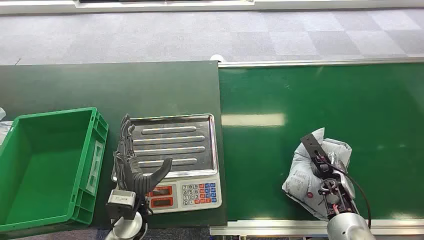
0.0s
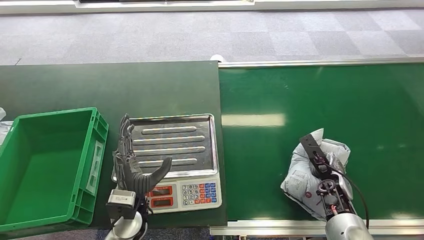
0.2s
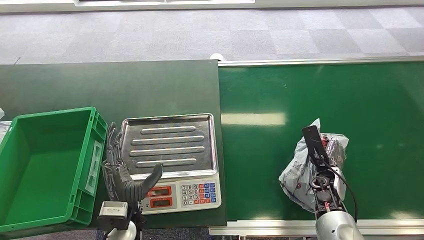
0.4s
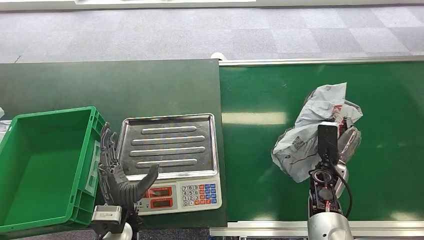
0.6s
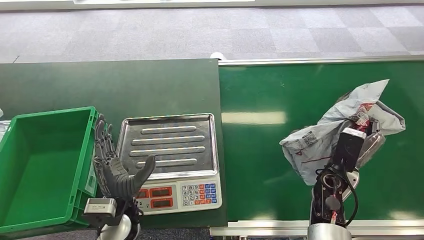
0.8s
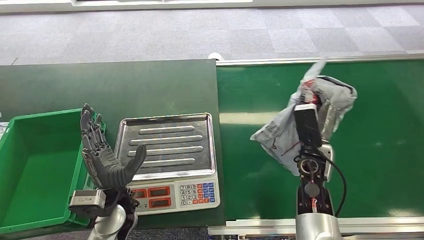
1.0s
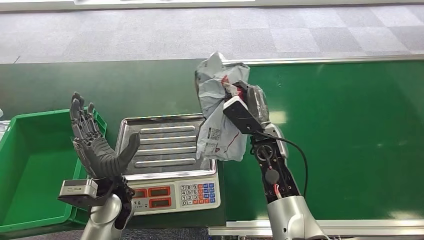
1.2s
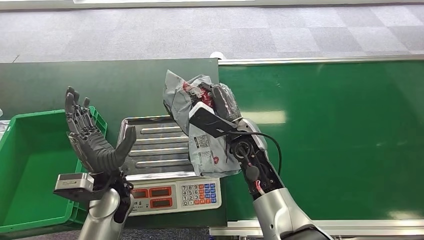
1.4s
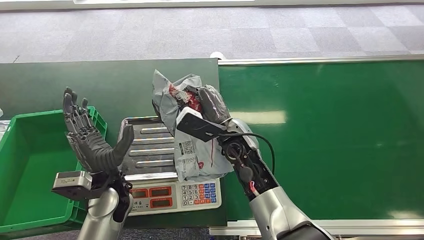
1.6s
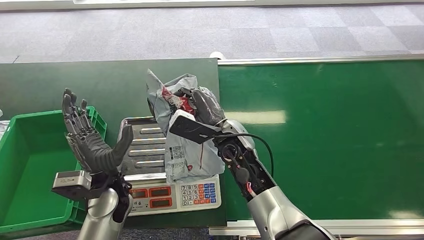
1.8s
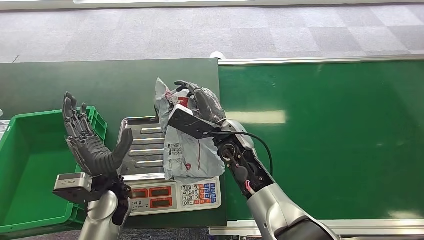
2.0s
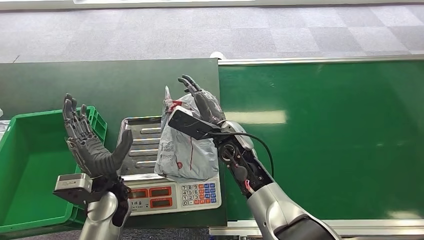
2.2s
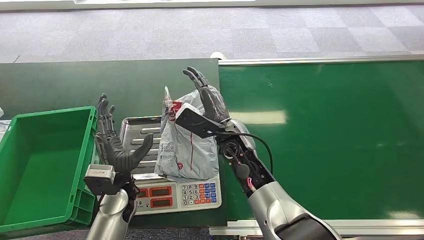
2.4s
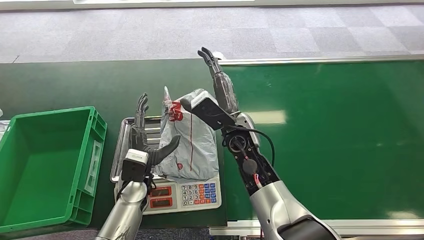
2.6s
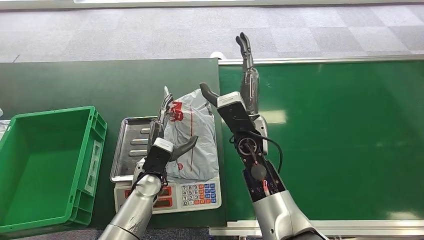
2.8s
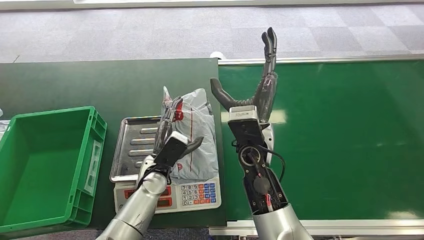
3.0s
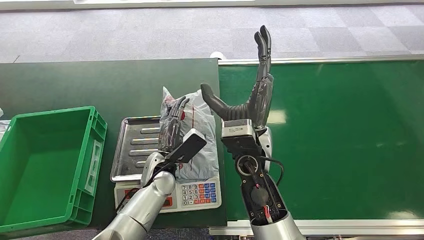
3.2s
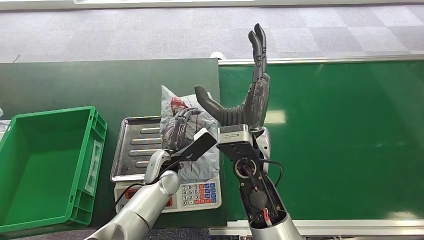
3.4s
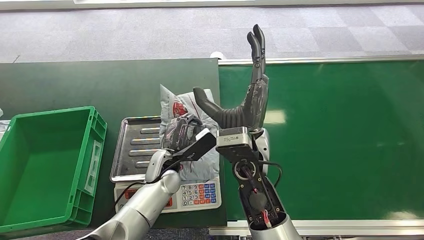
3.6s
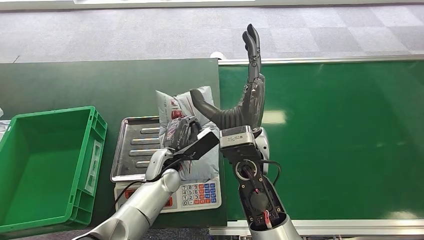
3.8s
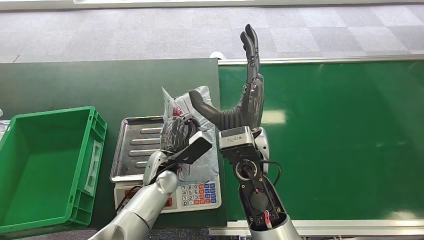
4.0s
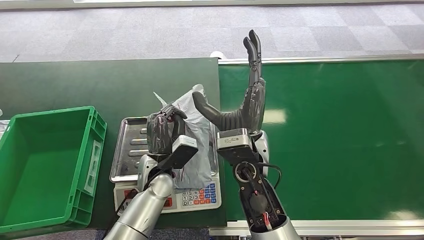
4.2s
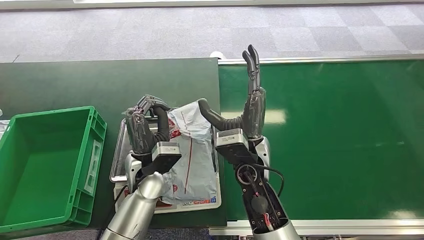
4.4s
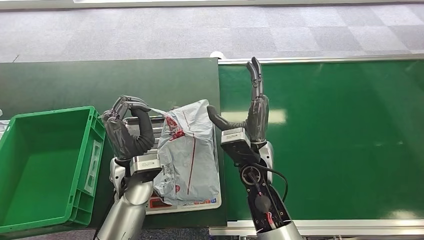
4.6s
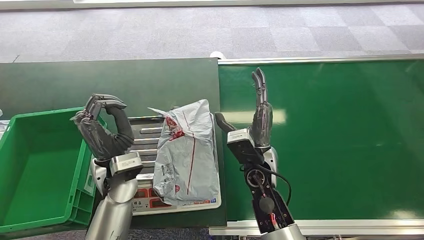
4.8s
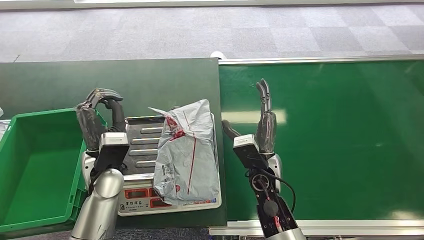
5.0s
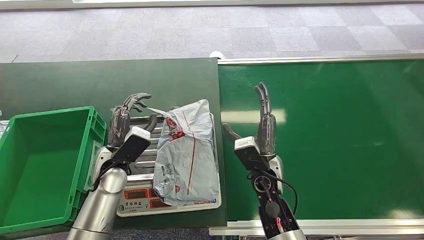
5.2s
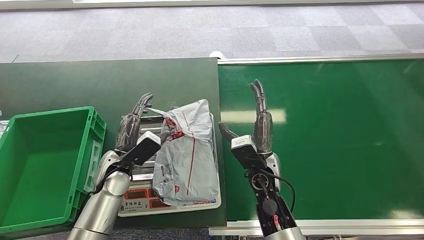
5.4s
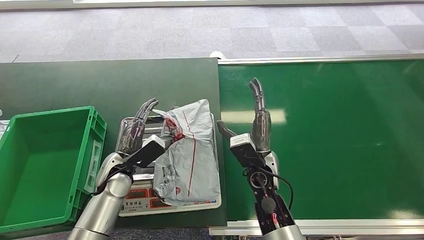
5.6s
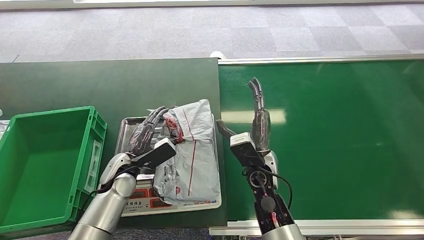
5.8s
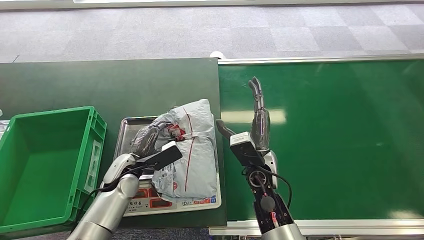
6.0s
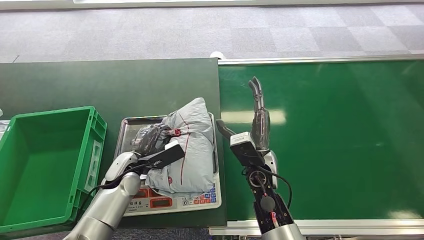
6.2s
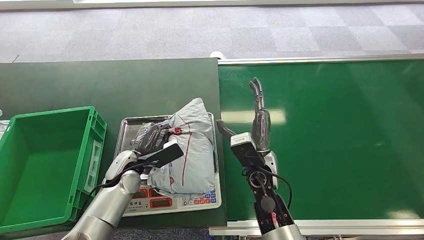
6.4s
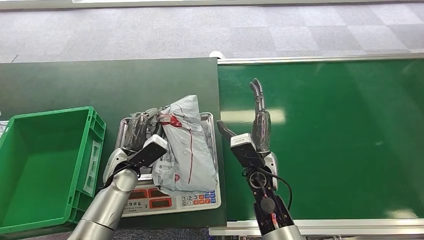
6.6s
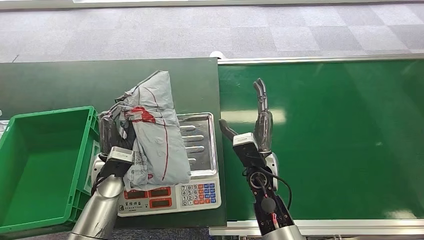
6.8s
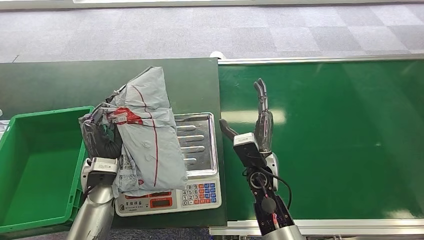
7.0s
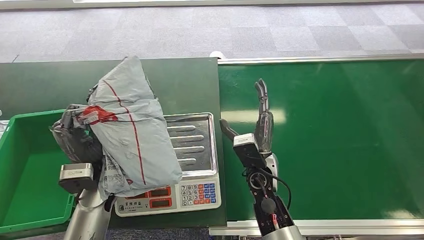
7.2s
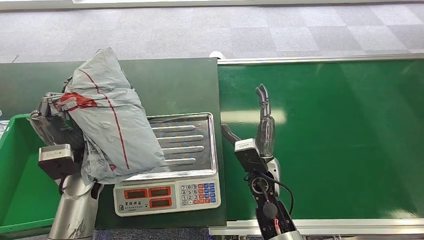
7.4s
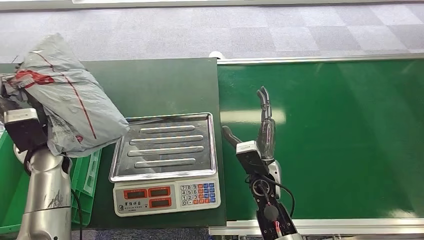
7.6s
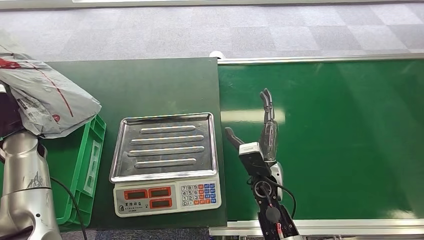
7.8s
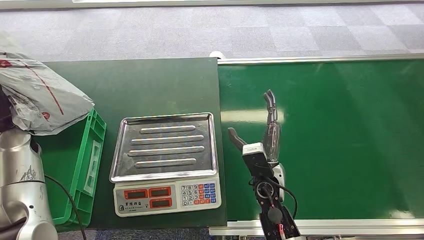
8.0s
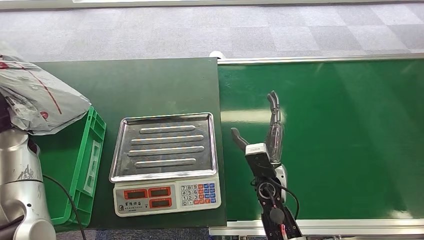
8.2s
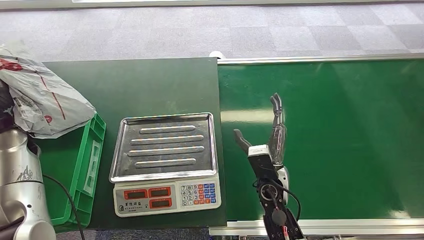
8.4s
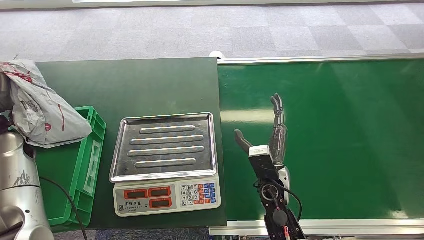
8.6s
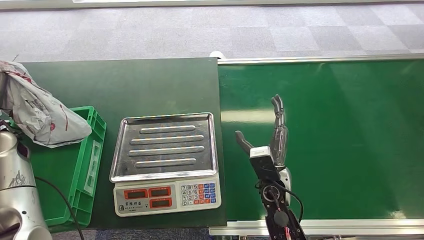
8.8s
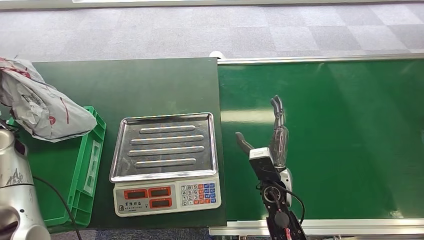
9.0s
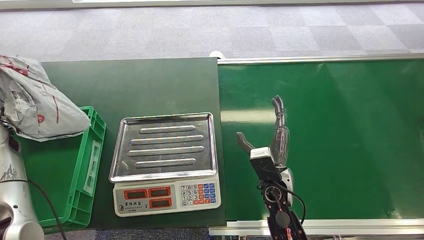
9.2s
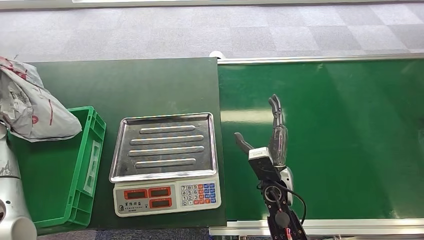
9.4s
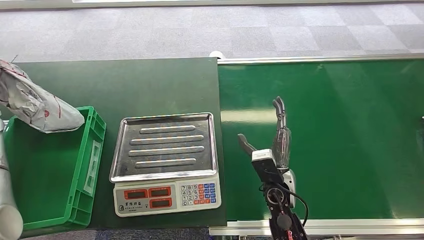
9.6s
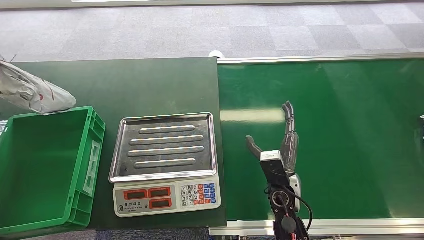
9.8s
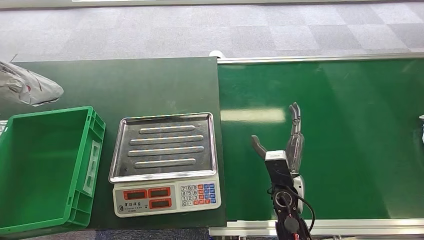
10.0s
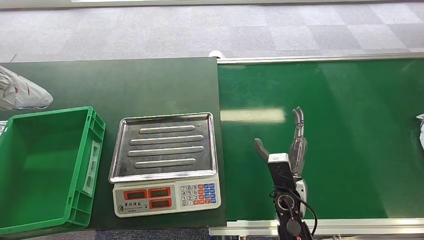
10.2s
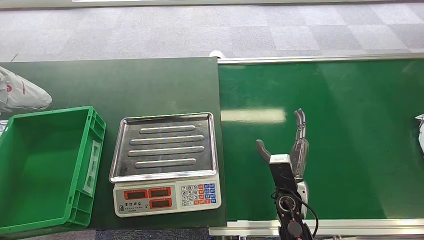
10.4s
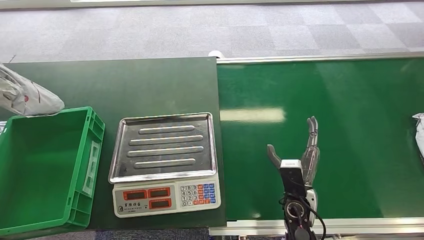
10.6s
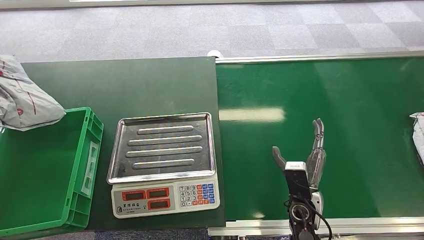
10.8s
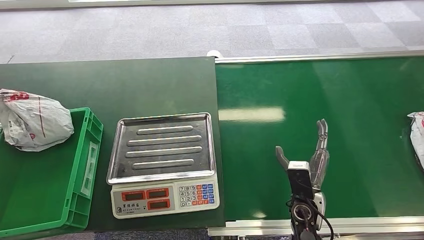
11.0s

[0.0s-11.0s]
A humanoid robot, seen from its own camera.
Step, 0.0s to 0.6s: Pick up the package from the conveyor belt.
Step, 1.6s to 2.6s: Place the package onto the inbound machine.
Step, 6.4s to 7.6s: Pick up the package from the inbound machine.
Step, 9.2s to 11.0s: Place the package into the parcel locker.
1.6s to 3.2s: The left hand is displaced to the right, forward and downward by some 10 cm; the right hand travels upward by about 5 cm.
3.2s to 4.8s: The left hand travels upward and to the left by some 10 cm, while the right hand heads downward, covering about 10 cm.
4.8s to 6.2s: The left hand moves downward, some 10 cm.
7.8s to 9.4s: The left hand goes about 5 cm to the left.

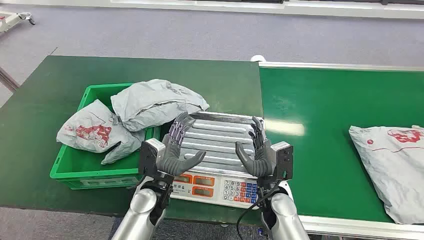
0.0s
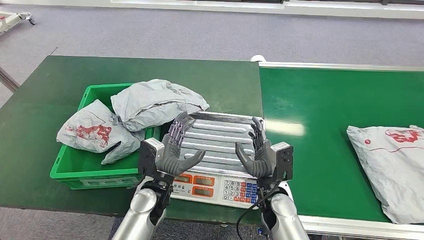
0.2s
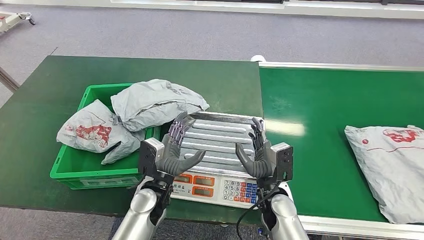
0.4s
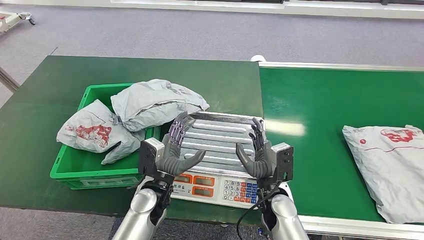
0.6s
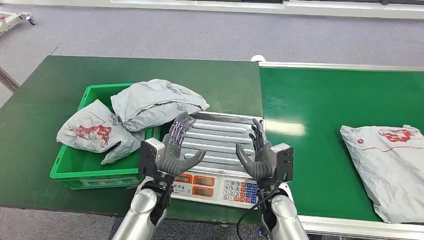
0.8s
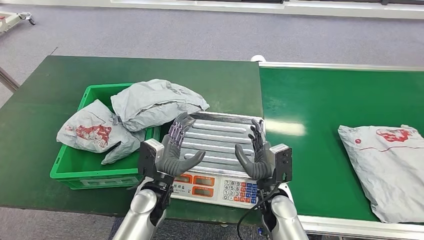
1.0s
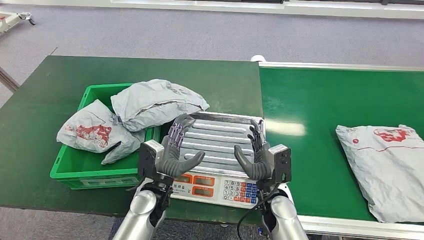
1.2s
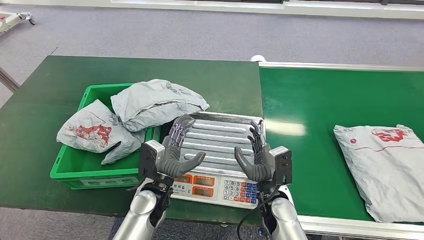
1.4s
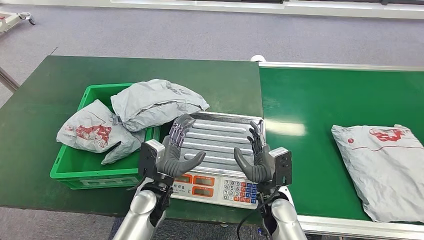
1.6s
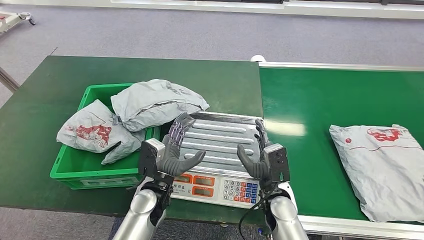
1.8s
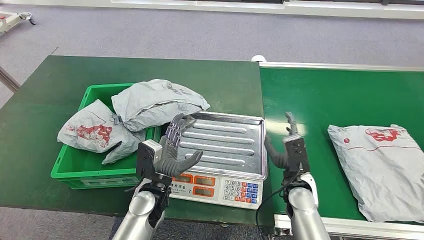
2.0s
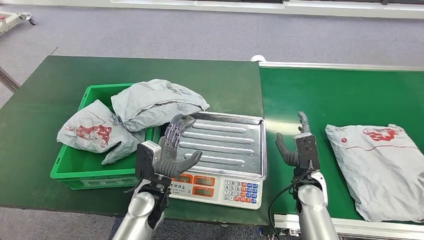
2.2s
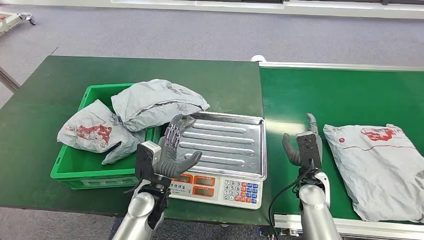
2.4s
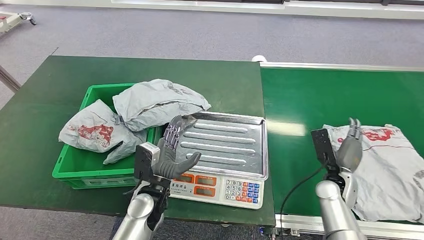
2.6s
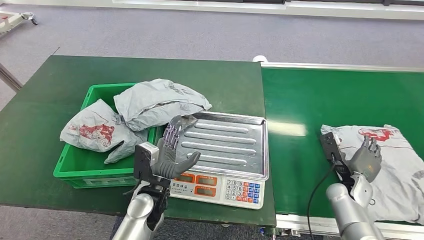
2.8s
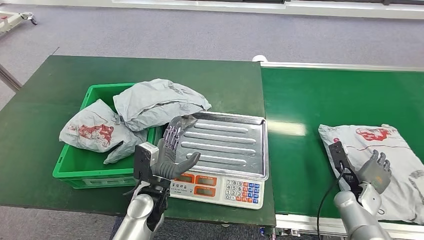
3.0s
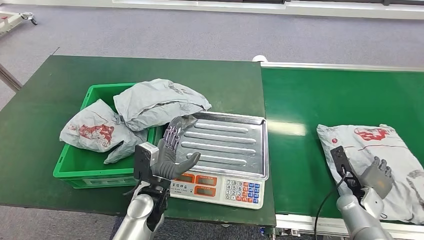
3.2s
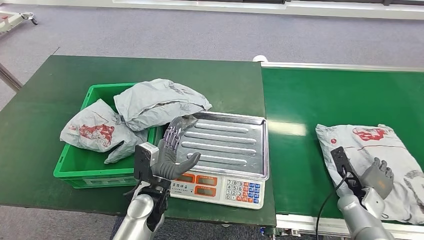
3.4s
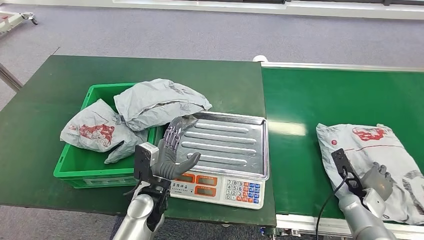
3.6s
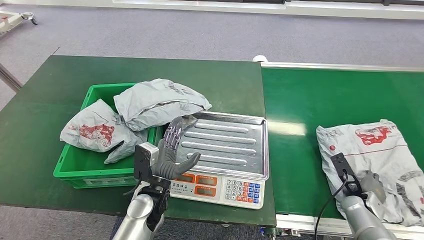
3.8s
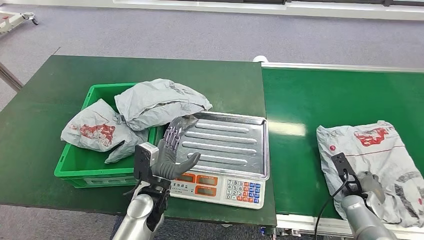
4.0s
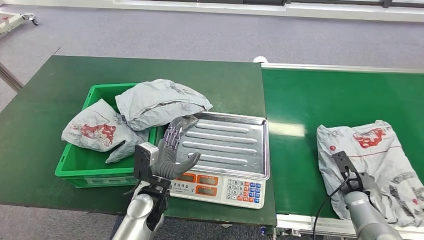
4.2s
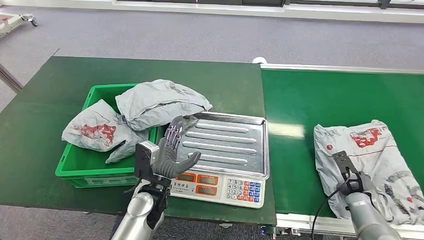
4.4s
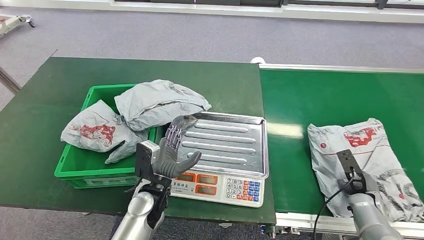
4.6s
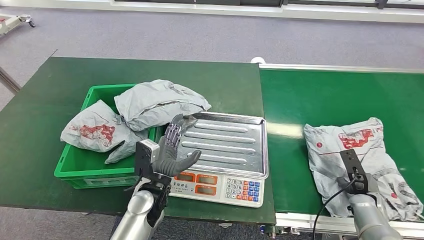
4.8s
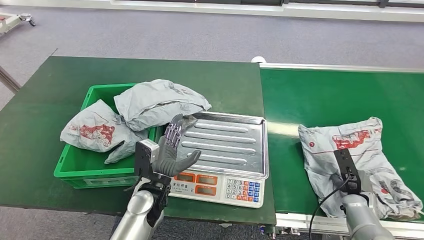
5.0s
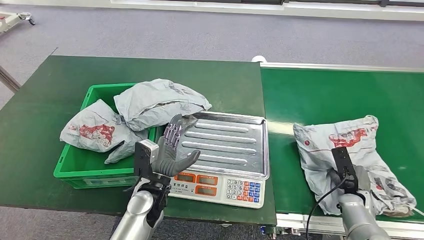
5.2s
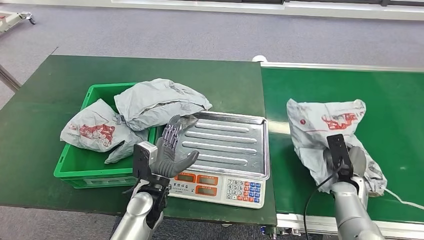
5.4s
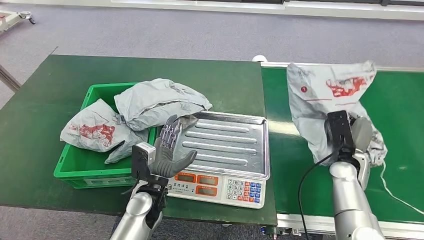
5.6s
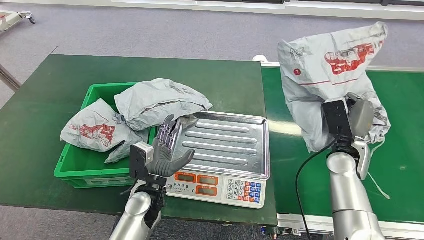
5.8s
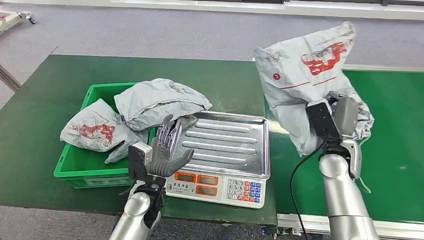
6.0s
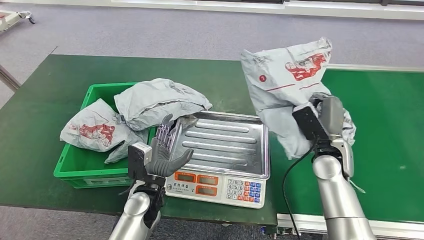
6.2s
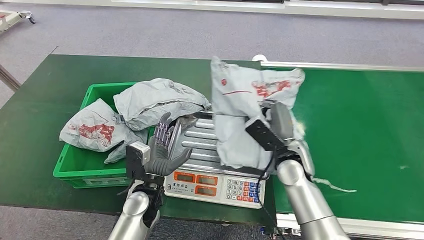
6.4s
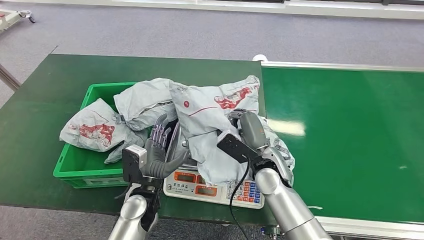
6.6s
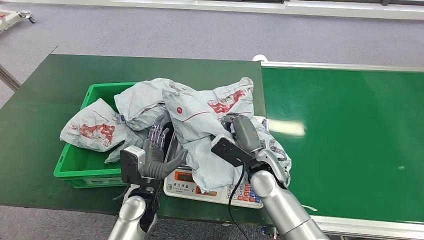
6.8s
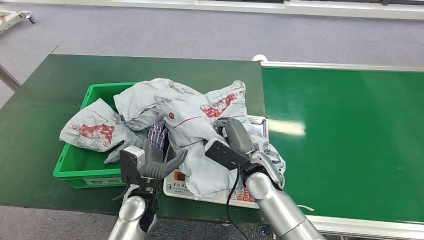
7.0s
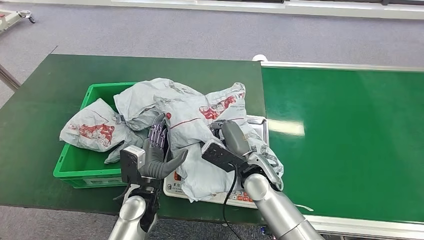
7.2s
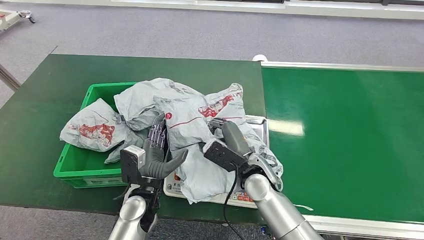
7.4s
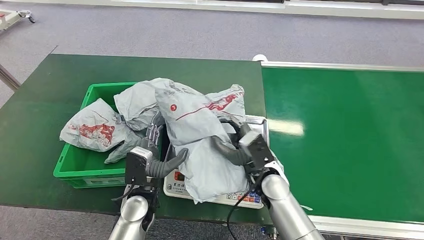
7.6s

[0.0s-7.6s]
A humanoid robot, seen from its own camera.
Step, 0.0s to 5.8s: Pick up the package from the conveyor belt.
1.6s to 3.0s: The right hand is displaced to the right by approximately 25 cm.
